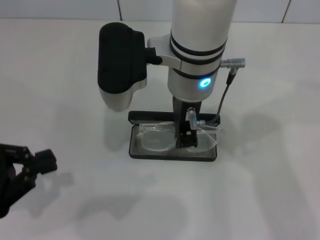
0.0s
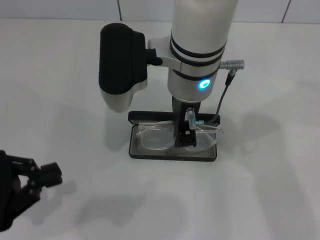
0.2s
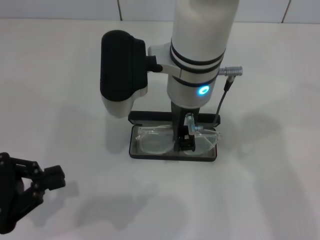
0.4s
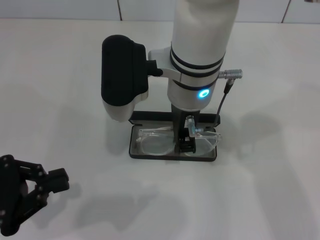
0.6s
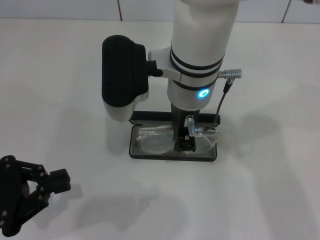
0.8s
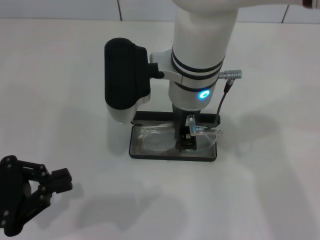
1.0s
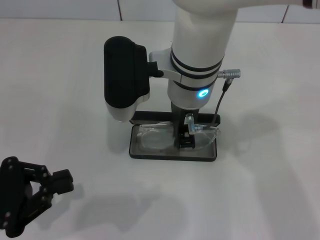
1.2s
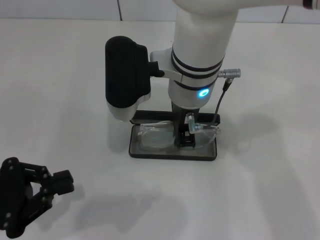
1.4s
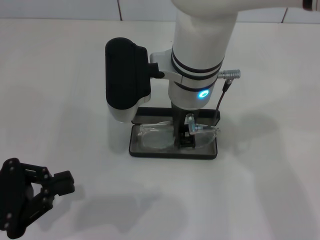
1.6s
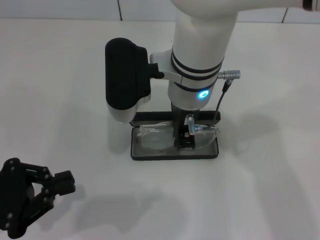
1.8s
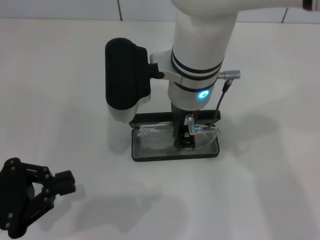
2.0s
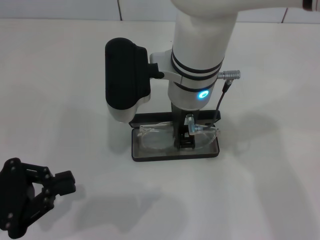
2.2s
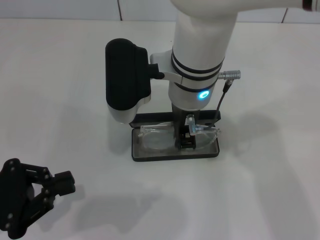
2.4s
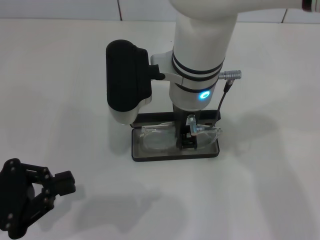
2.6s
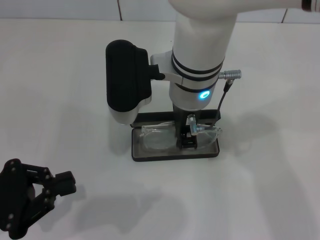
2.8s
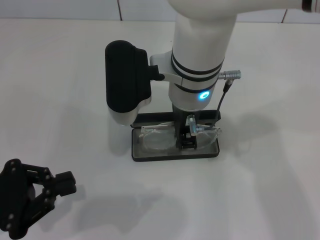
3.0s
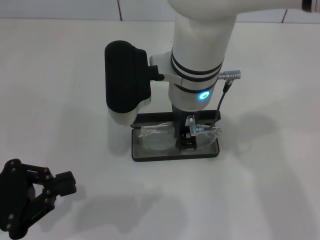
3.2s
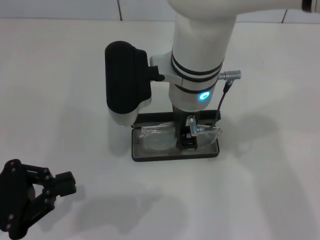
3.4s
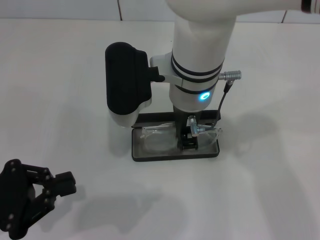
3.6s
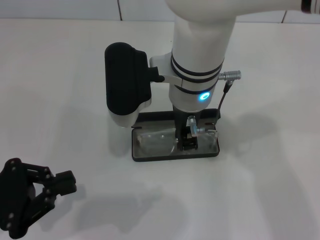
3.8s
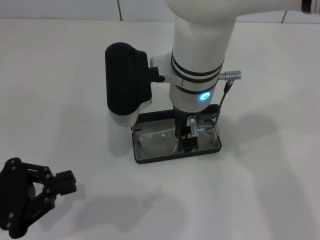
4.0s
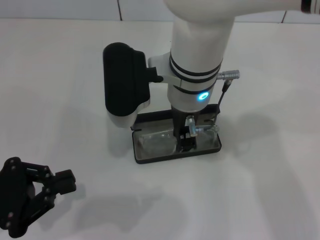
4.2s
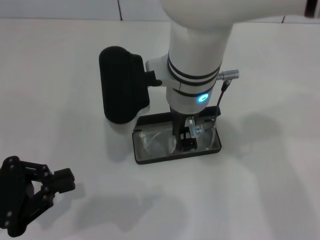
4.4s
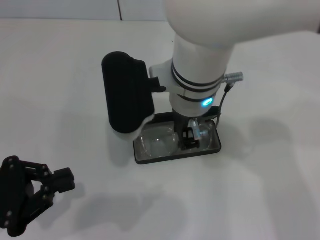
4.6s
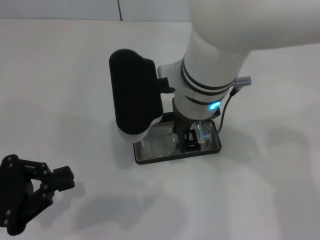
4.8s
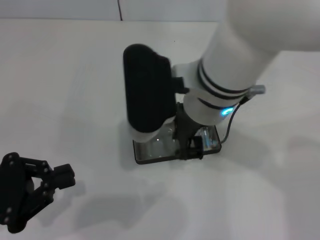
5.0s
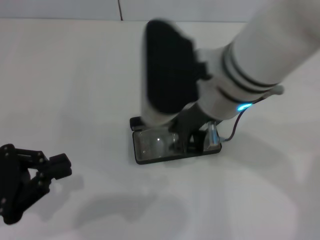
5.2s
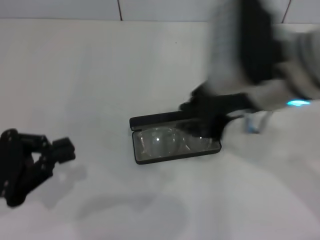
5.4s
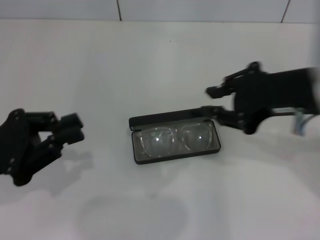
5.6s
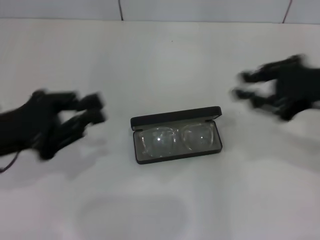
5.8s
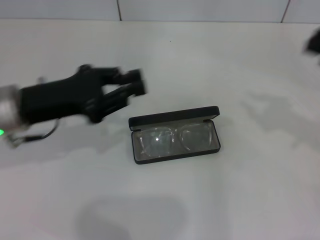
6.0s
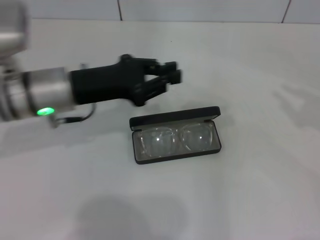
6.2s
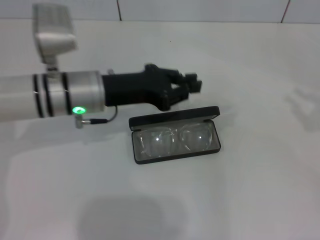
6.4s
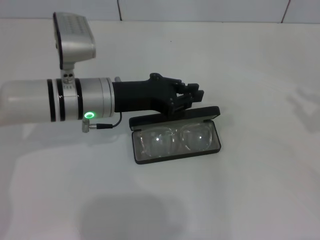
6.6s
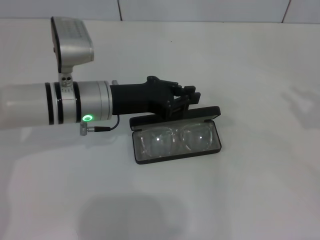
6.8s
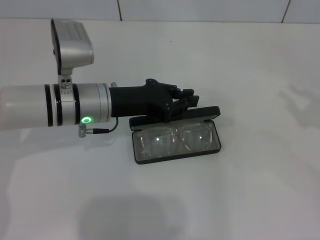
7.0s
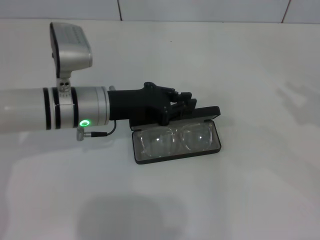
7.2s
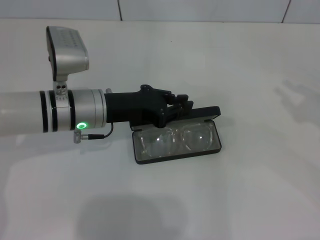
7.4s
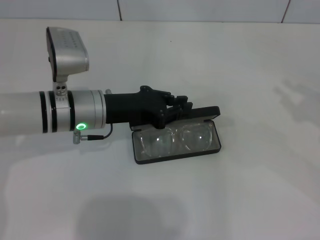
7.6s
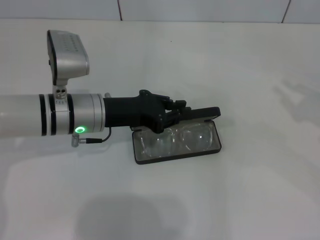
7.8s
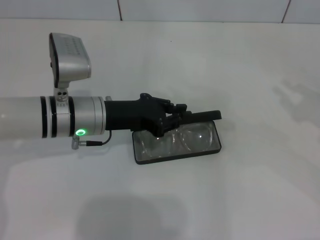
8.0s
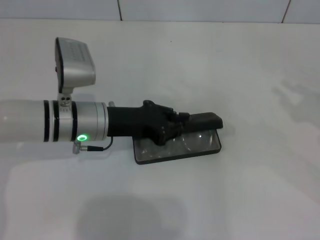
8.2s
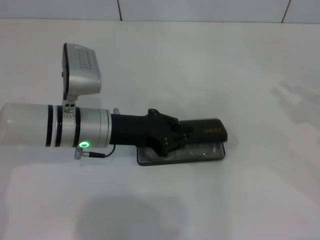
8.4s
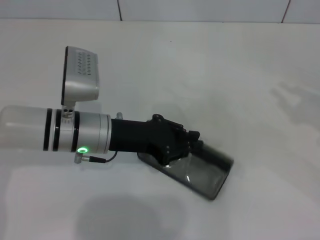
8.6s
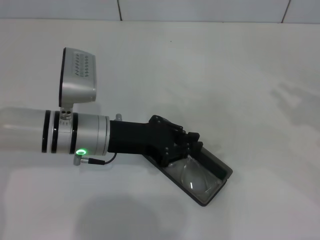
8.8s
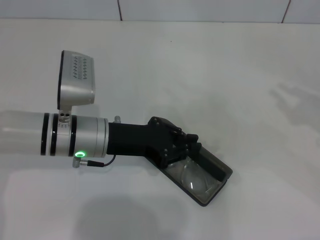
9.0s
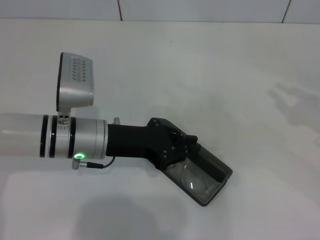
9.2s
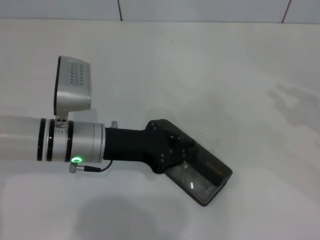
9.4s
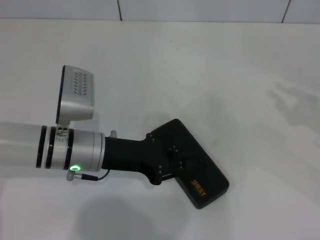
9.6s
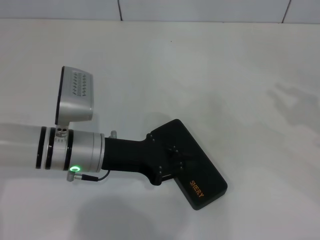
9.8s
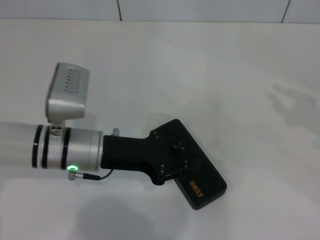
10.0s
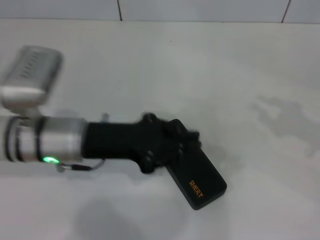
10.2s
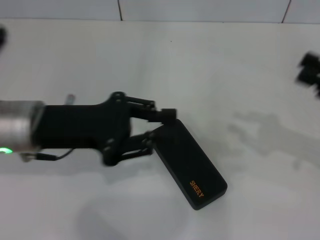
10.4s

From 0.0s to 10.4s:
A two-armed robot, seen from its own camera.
Step, from 0.0s to 4.6s: Put the glasses into the case with your right hand.
Step, from 4.8s to 9.6s: Close the glasses case with your left hand.
From 0.0s to 1.4s: The grippers make only small movements.
From 1.4s to 3.0s: Neither gripper changes place.
From 3.0s to 4.4s: Both grippers stay about where they are.
From 4.4s to 6.0s: The left gripper travels forward and to the right by about 15 cm; the right gripper heads to the right, covering about 35 cm.
From 6.0s to 7.4s: The right gripper shifts by approximately 5 cm, while the left gripper goes approximately 10 cm to the right.
From 7.4s to 9.0s: There are only small adjustments of the grippers.
From 9.0s to 10.4s: The left gripper moves upward and to the left, approximately 10 cm.

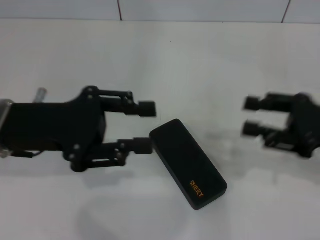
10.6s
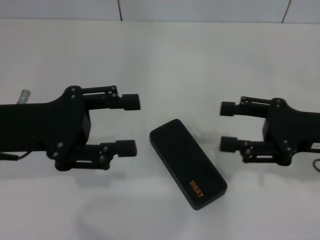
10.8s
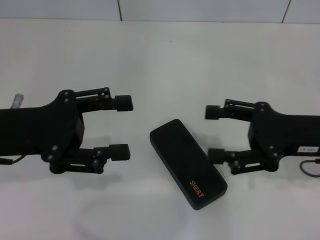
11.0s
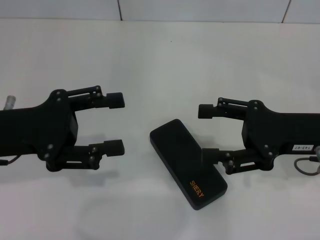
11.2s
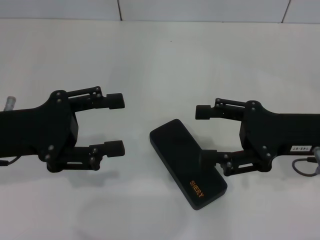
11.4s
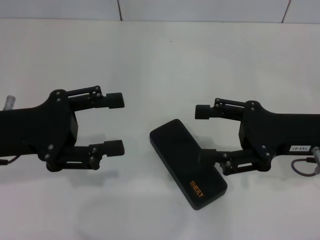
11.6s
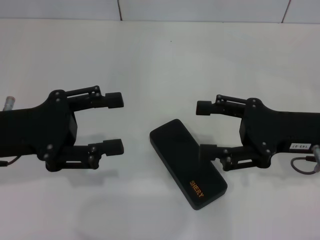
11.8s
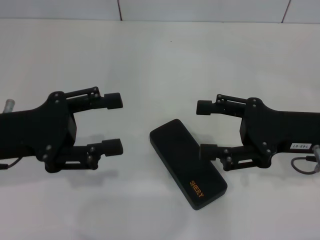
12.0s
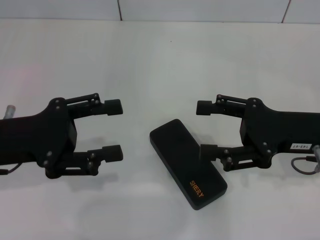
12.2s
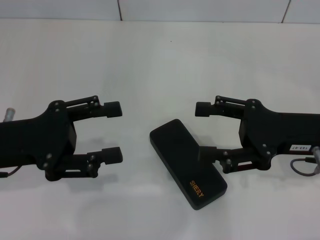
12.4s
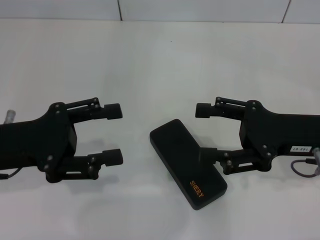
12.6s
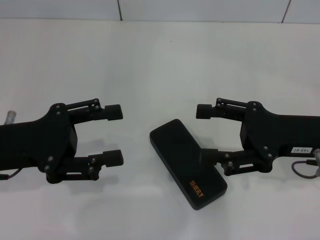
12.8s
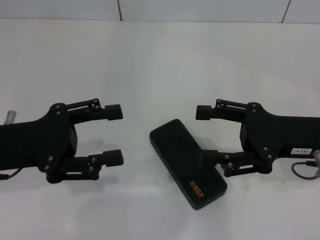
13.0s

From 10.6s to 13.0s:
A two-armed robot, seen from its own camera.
From 10.6s to 11.8s: The right gripper goes roughly 5 cm to the left, and opens. Meanwhile the left gripper opens.
From 11.8s to 13.0s: There are only small adjustments of the grippers.

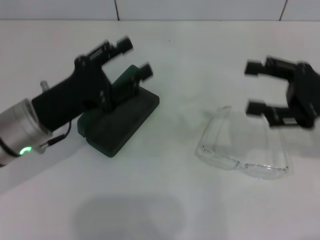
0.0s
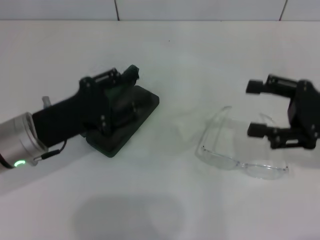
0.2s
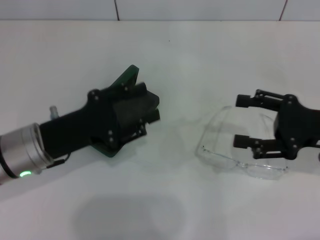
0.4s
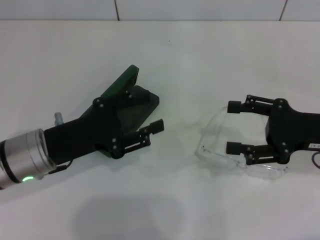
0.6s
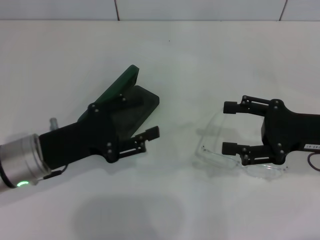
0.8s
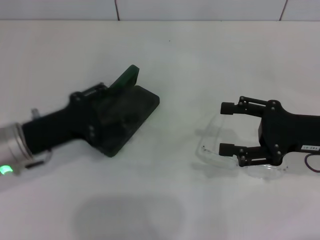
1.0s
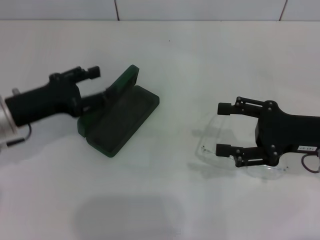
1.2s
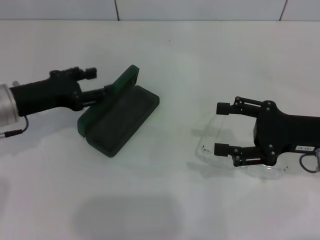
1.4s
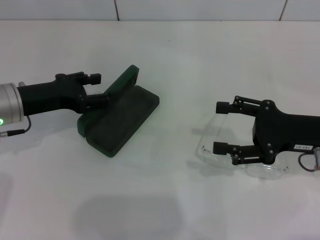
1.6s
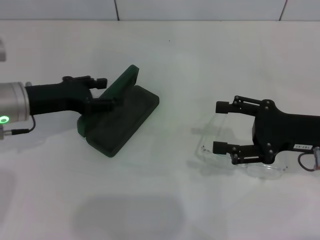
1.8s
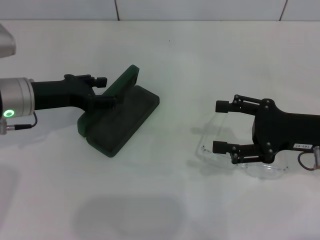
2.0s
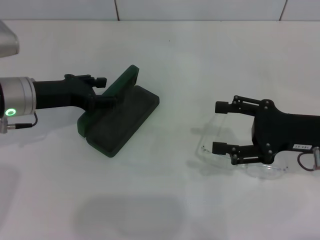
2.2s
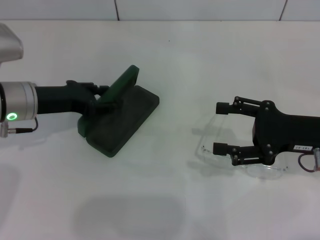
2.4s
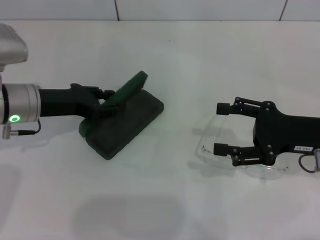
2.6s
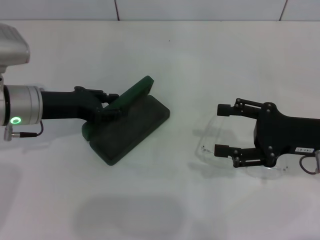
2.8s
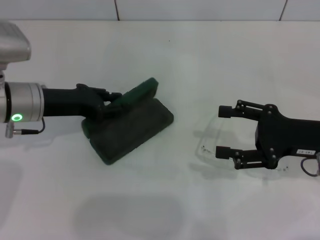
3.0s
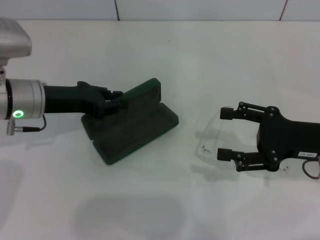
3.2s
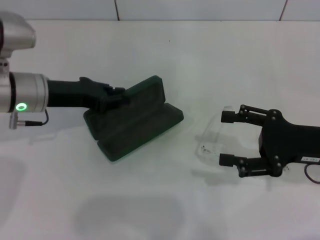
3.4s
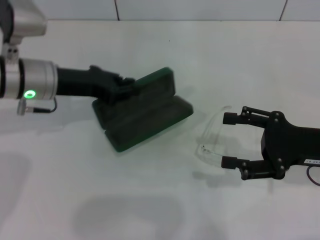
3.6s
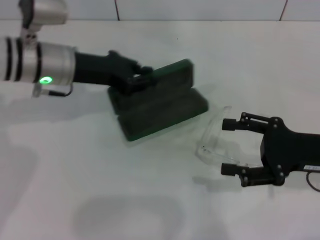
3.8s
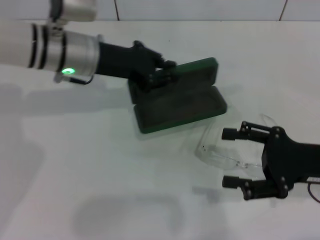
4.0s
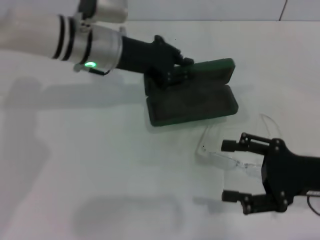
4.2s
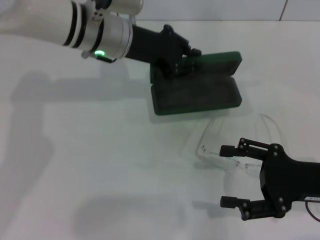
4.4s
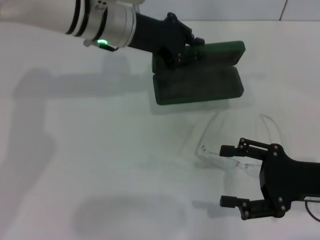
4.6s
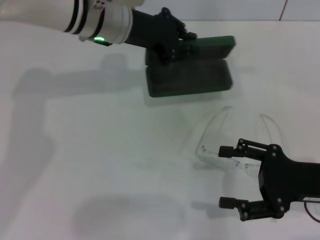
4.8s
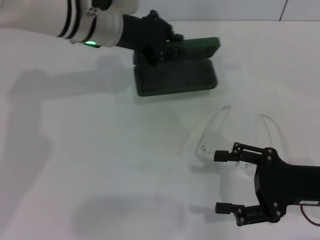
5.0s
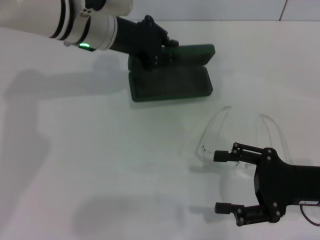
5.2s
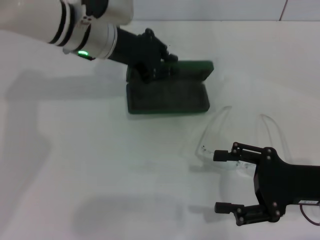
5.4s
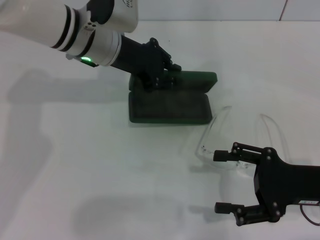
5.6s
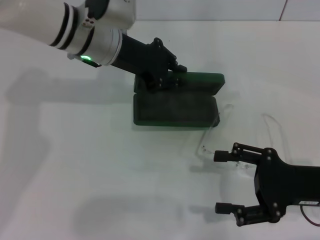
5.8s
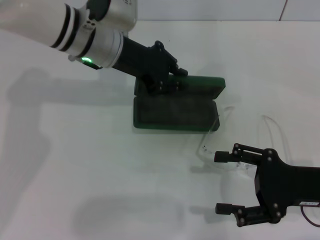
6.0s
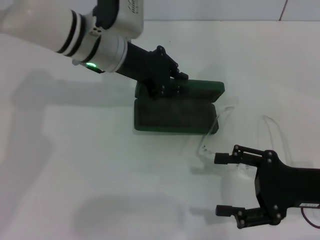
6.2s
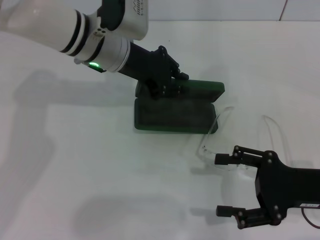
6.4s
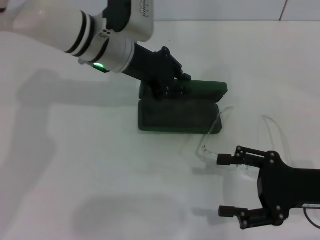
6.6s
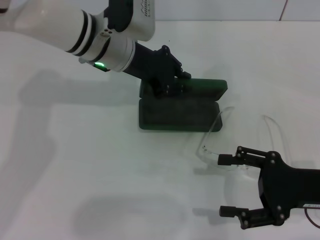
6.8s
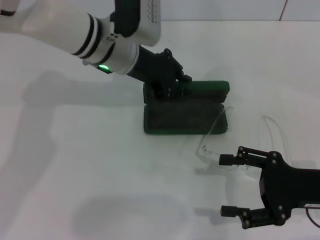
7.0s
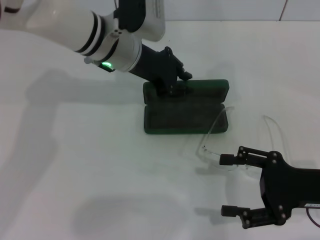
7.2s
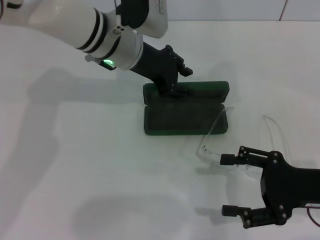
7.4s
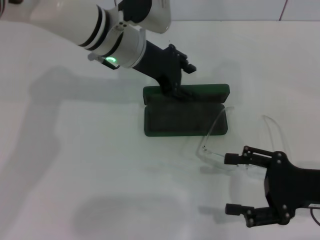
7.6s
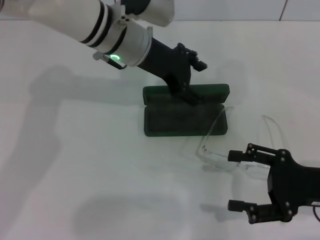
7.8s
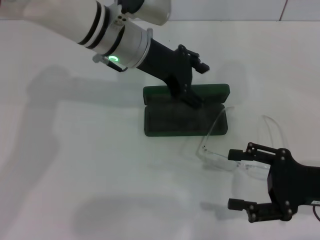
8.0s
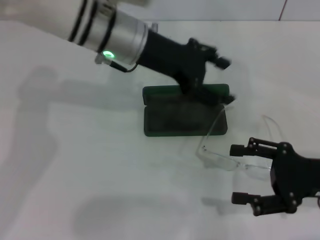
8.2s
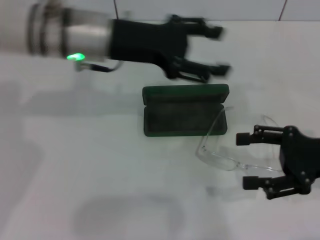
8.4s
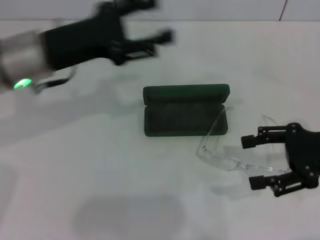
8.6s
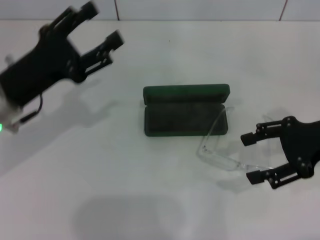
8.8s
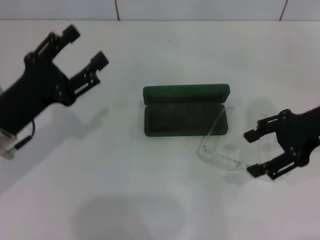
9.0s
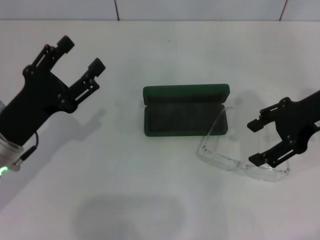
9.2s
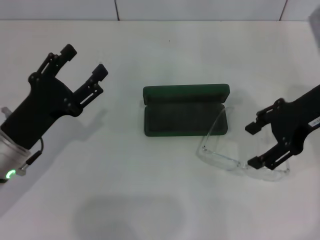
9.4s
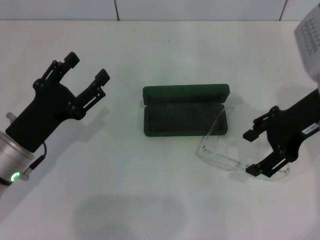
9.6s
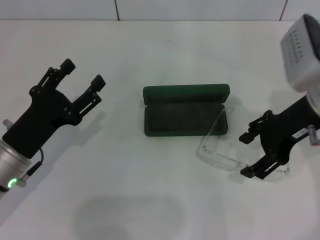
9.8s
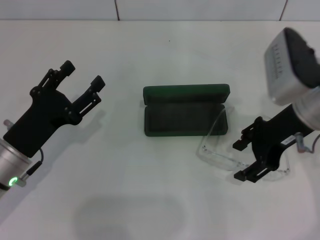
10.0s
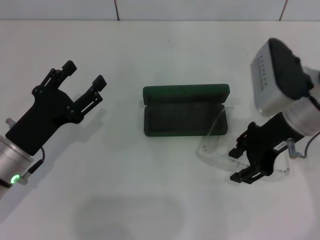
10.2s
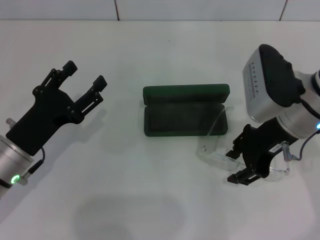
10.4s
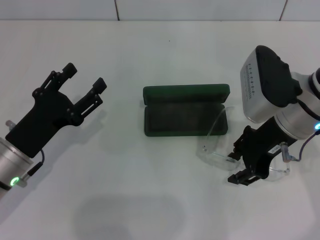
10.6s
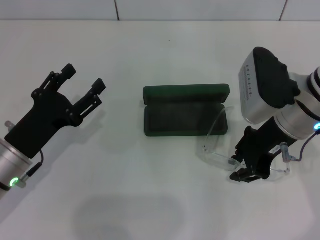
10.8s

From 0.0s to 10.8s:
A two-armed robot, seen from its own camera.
Step, from 0.0s to 2.4s: Grab the glasses case with your left hand.
Step, from 2.6s to 7.8s: Place the glasses case in the center of the table with your left hand.
From 0.0s to 1.6s: The left gripper travels to the left by some 5 cm, while the right gripper changes place by roughly 5 cm.
From 1.6s to 3.0s: The left gripper closes up.
From 3.0s to 4.6s: The right gripper ends up some 5 cm from where it was. The left gripper is displaced to the right, upward and forward by approximately 15 cm, and closes its fingers.
From 6.2s to 7.8s: The left gripper opens.
From 7.8s to 9.2s: The right gripper travels upward and forward by some 15 cm, while the left gripper moves to the left, backward and downward, some 25 cm.
From 9.2s to 10.8s: The right gripper heads to the left, covering some 10 cm, and closes its fingers.
